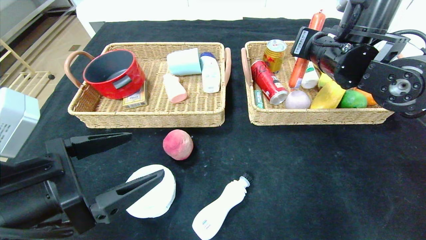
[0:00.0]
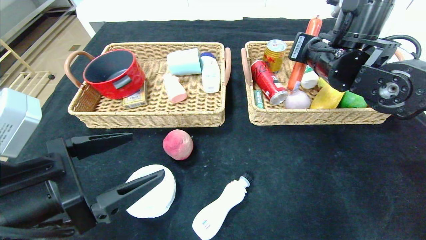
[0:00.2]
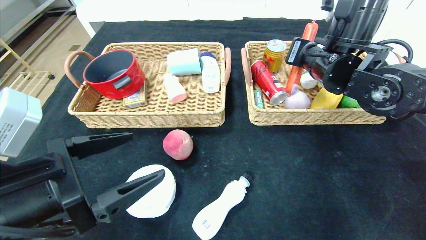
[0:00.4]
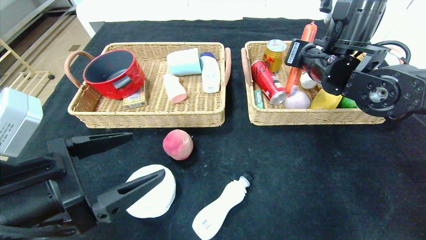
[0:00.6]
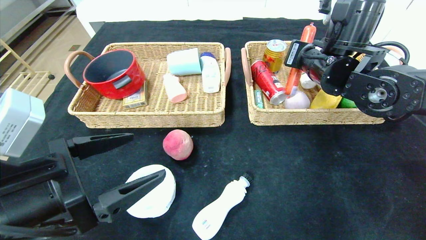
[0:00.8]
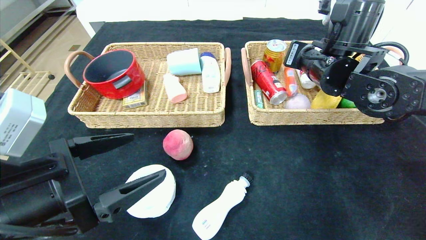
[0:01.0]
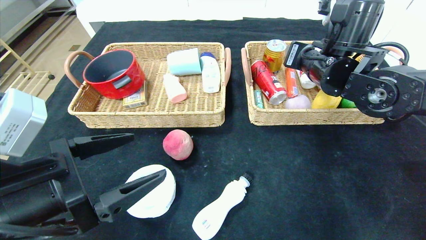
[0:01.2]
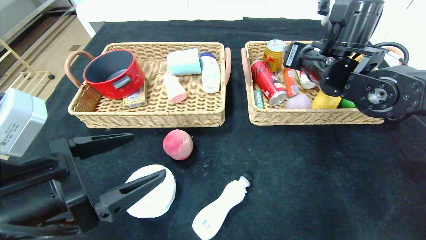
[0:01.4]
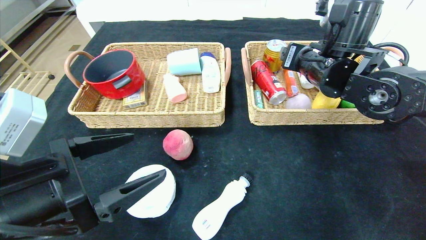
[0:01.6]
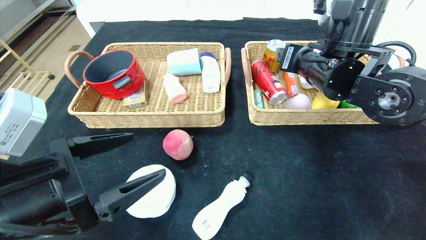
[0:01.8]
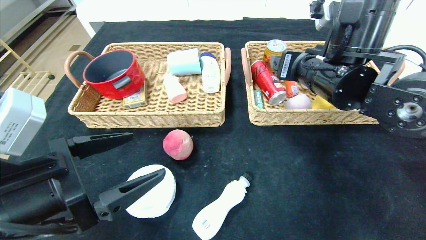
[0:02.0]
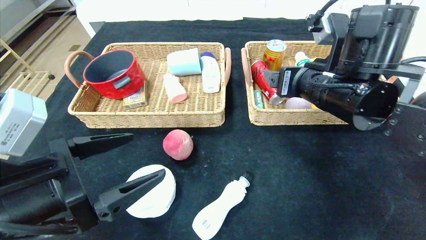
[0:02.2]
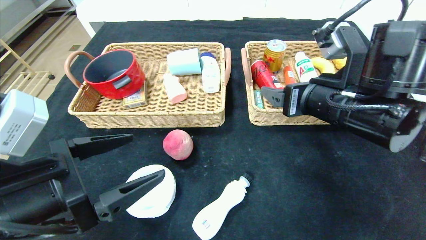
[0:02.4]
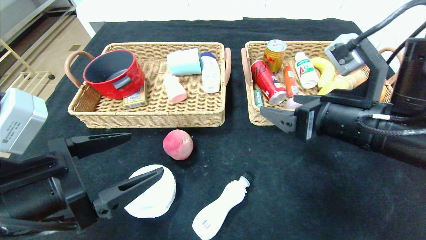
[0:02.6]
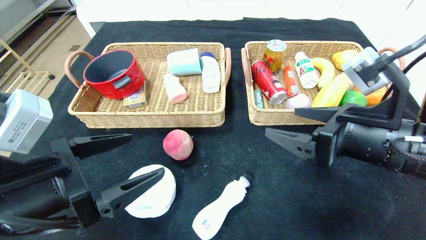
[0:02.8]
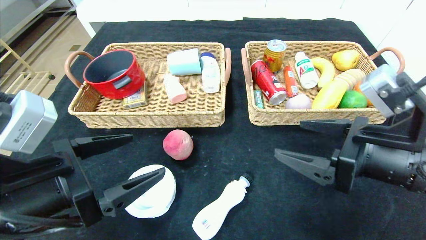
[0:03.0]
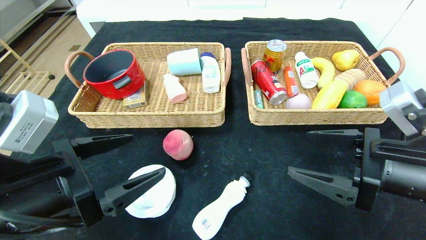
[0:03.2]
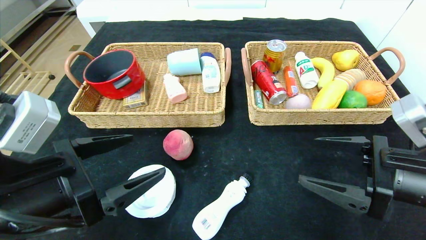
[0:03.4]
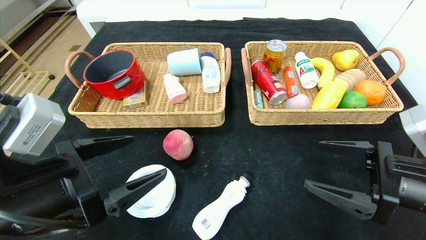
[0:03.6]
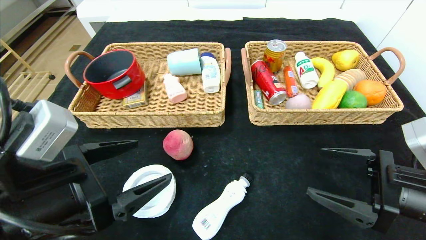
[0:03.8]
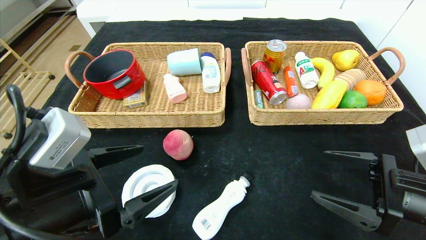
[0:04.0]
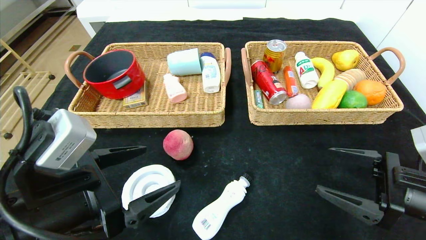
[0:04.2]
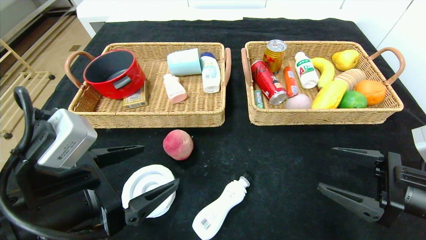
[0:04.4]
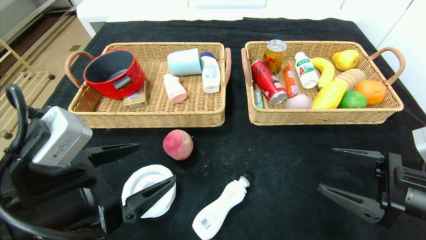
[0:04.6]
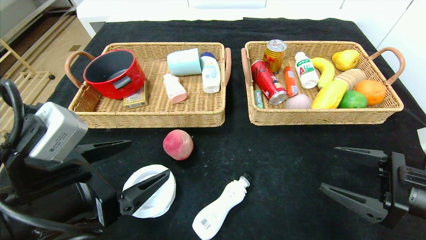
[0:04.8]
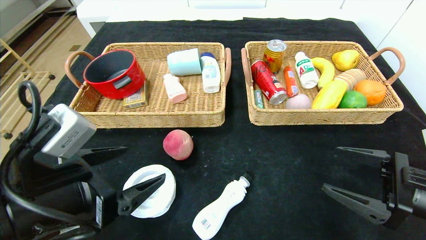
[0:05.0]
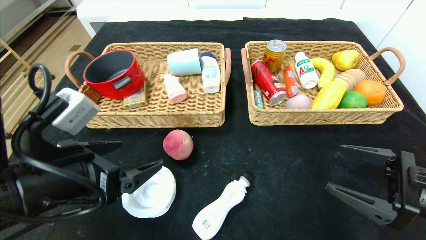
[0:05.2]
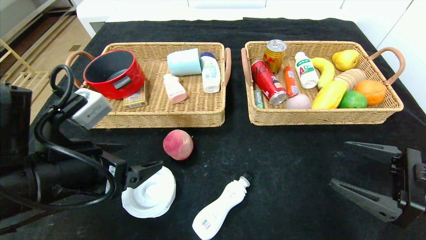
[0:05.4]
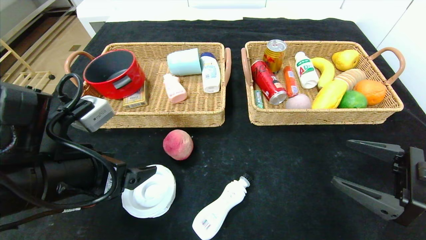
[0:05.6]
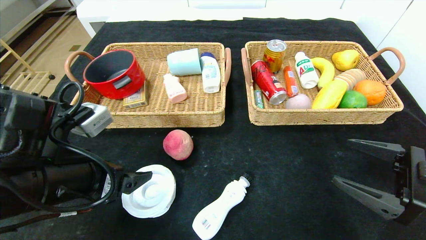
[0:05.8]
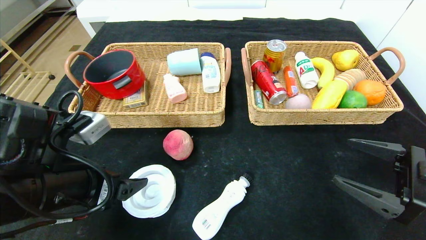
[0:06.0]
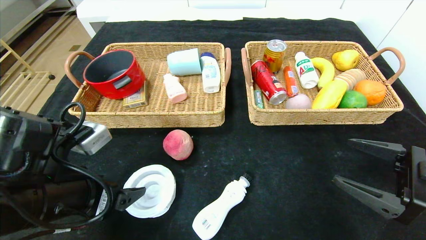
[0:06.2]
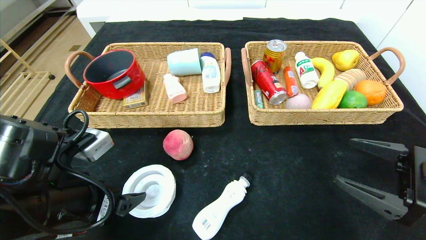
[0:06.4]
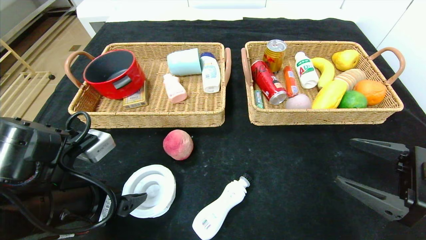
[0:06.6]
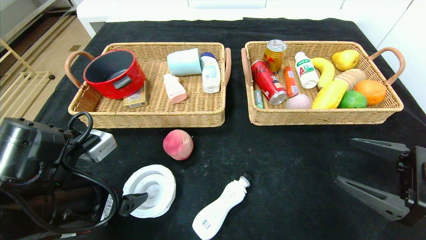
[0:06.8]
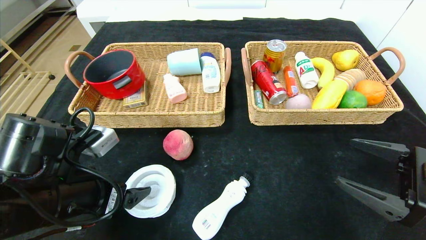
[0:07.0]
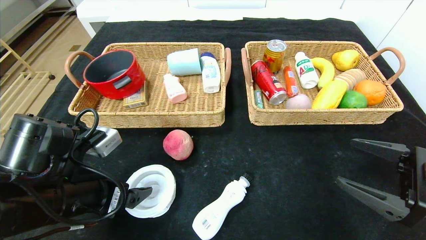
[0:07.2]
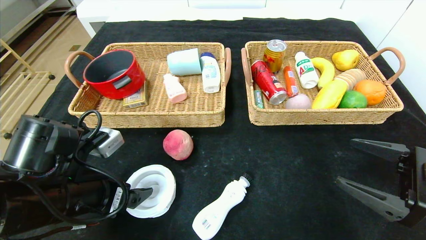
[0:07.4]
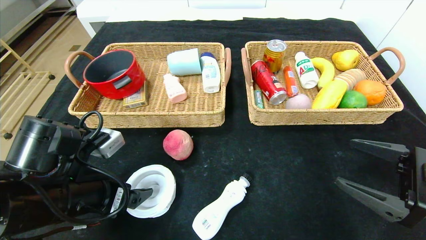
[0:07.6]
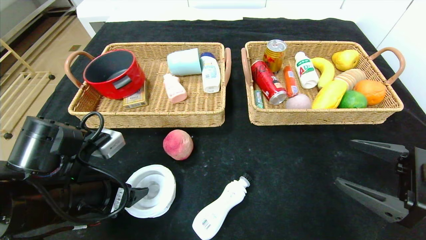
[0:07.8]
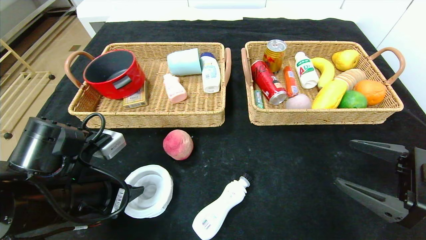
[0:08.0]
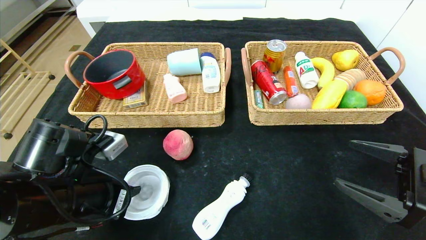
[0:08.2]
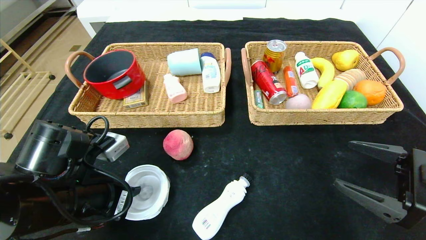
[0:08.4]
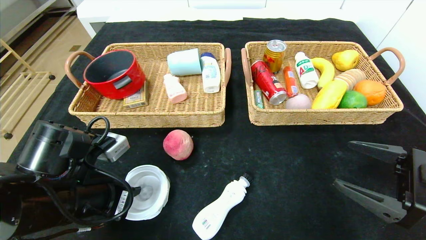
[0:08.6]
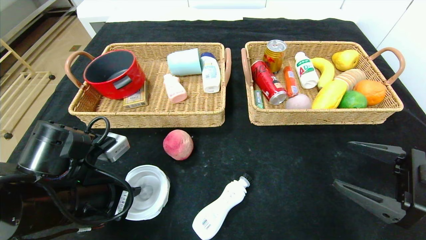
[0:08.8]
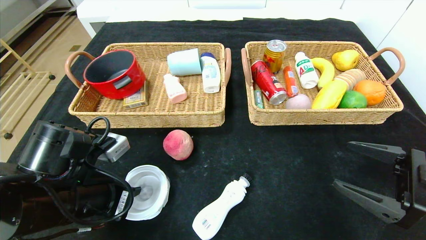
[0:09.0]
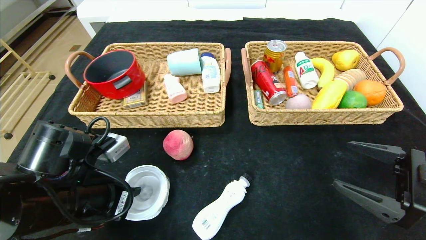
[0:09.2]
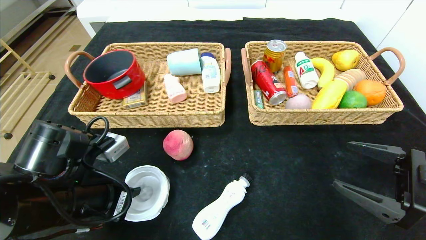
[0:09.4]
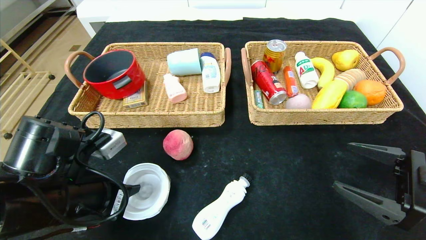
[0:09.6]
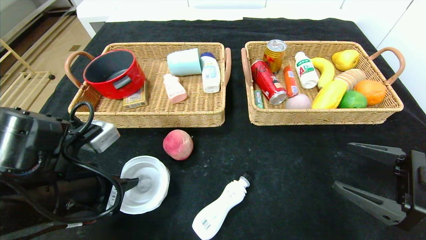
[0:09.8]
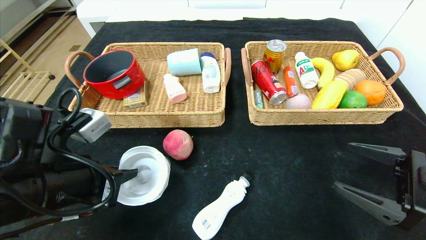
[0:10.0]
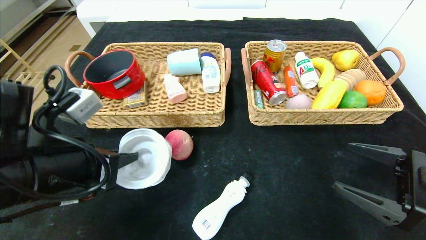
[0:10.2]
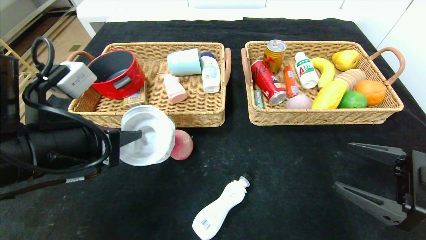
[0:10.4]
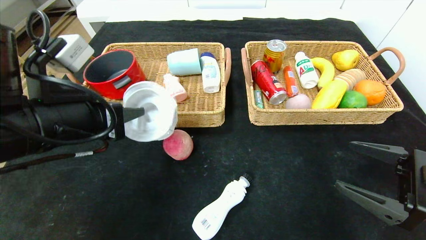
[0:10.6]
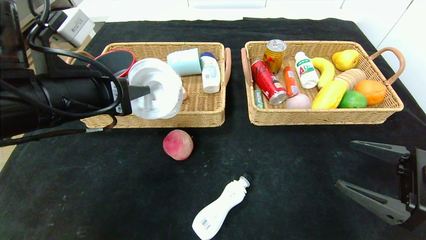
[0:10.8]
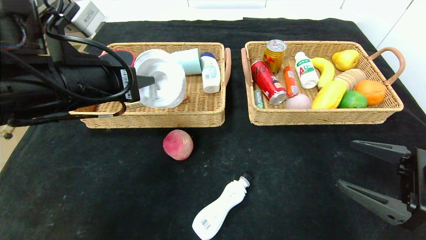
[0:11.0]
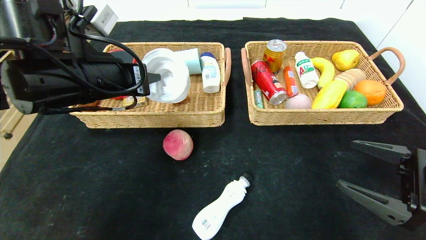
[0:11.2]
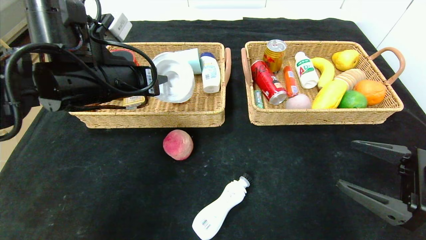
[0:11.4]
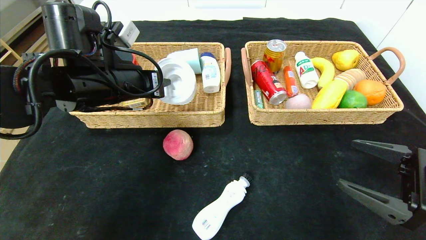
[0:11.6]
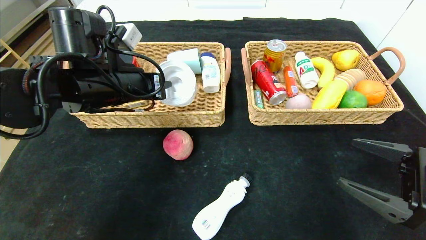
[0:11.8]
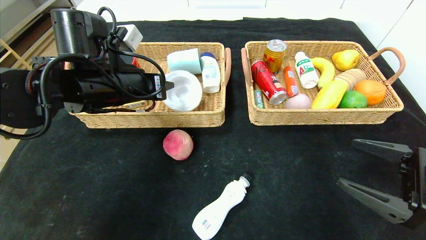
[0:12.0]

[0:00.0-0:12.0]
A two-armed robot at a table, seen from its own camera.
0:00.0 to 0:01.6: The right gripper opens.
0:01.6 to 0:03.0: The right gripper travels backward by roughly 15 cm.
0:03.0 to 0:04.4: The right gripper heads to the right and downward, covering approximately 10 cm.
0:06.0 to 0:07.6: The grippers move only a little.
0:07.6 to 0:09.0: The left gripper closes its fingers.
0:09.0 to 0:10.4: The left gripper shifts approximately 10 cm upward.
0:10.4 to 0:12.0: The left gripper moves forward, about 15 cm.

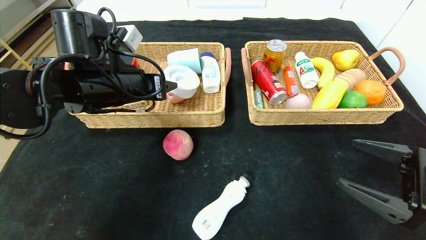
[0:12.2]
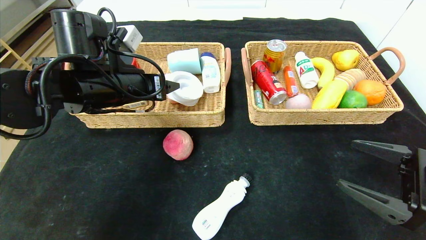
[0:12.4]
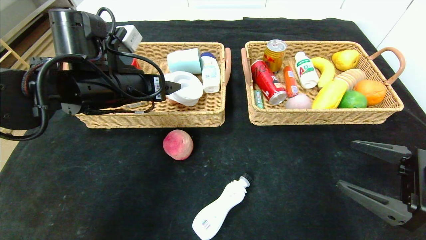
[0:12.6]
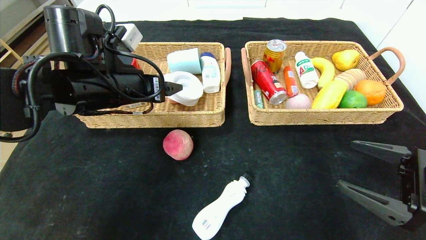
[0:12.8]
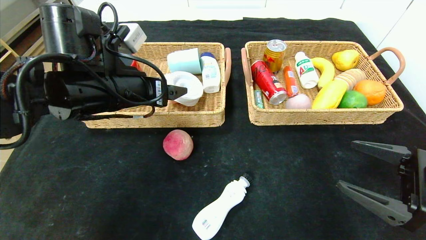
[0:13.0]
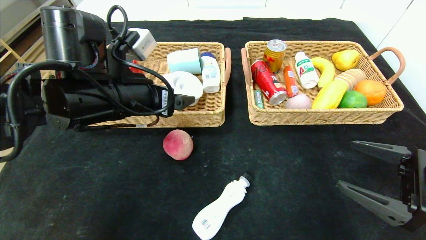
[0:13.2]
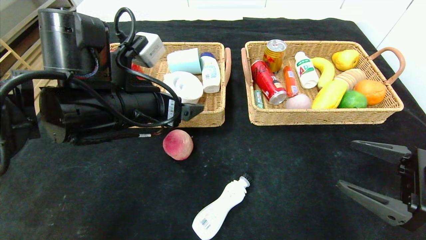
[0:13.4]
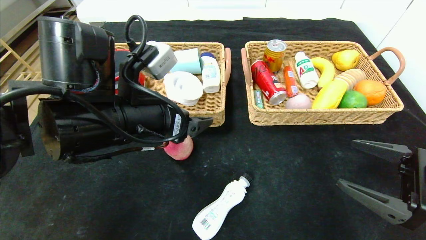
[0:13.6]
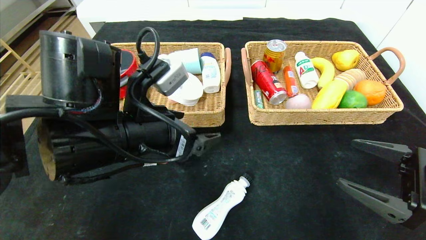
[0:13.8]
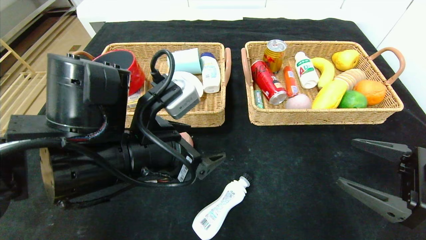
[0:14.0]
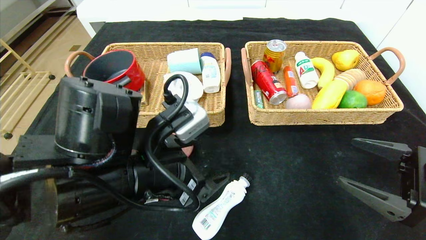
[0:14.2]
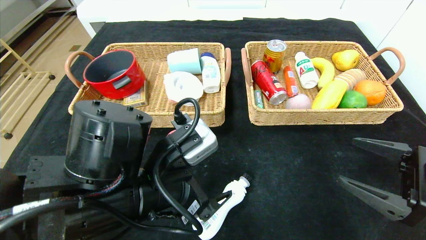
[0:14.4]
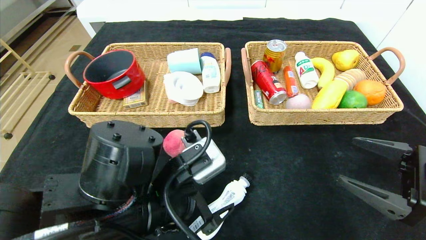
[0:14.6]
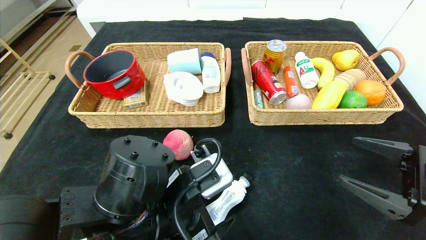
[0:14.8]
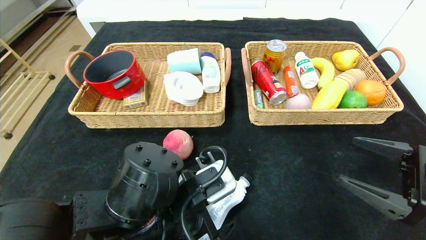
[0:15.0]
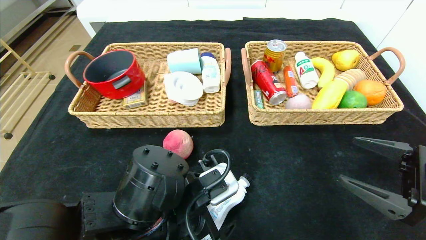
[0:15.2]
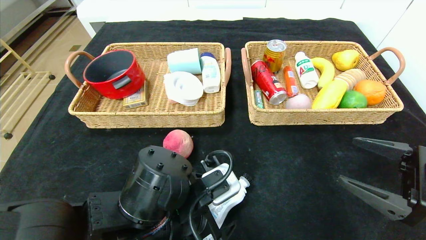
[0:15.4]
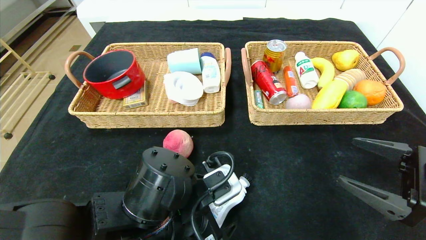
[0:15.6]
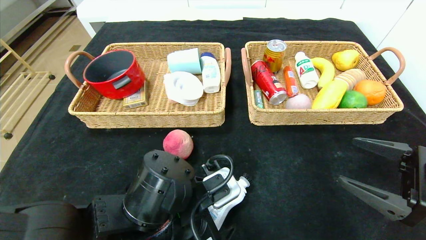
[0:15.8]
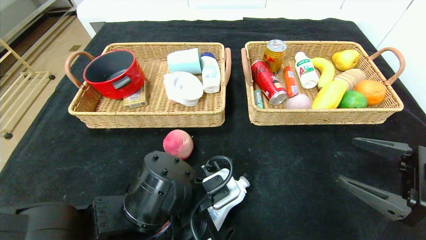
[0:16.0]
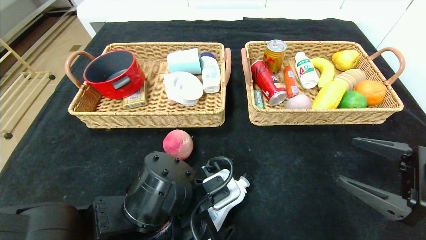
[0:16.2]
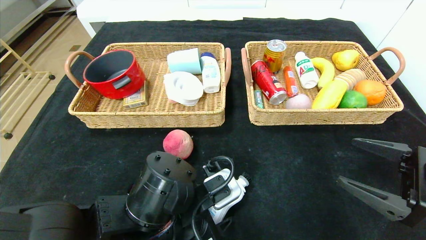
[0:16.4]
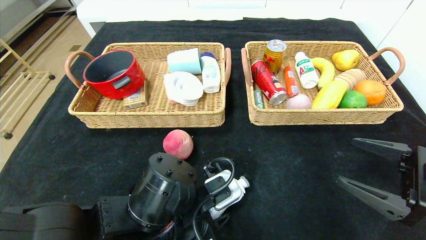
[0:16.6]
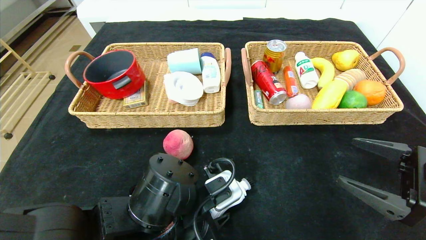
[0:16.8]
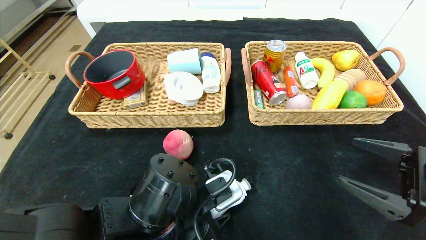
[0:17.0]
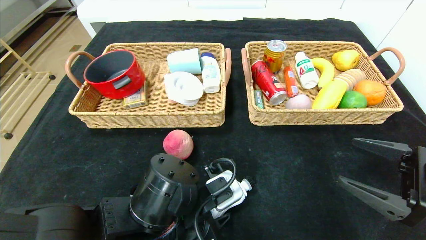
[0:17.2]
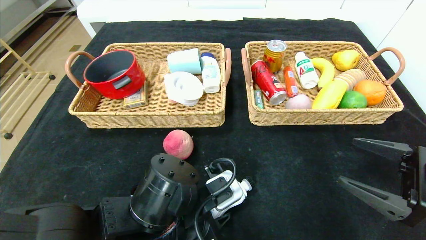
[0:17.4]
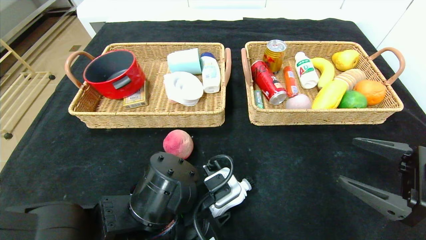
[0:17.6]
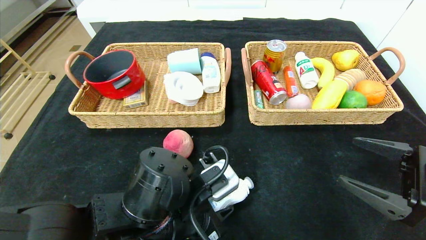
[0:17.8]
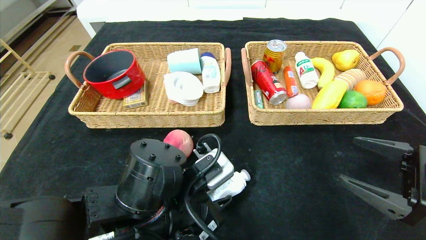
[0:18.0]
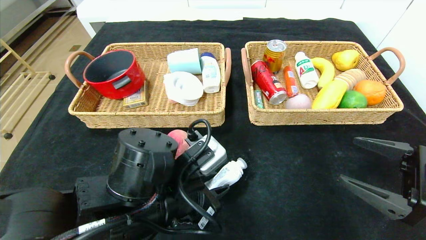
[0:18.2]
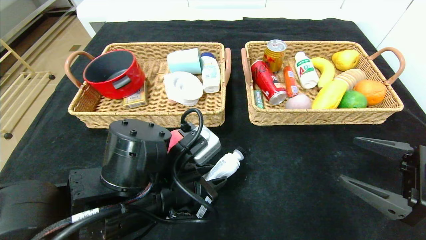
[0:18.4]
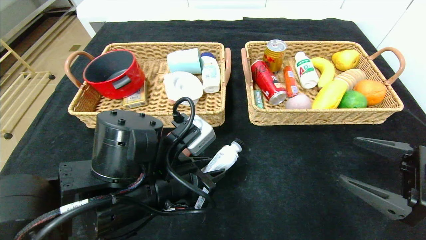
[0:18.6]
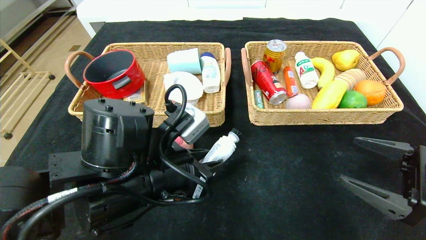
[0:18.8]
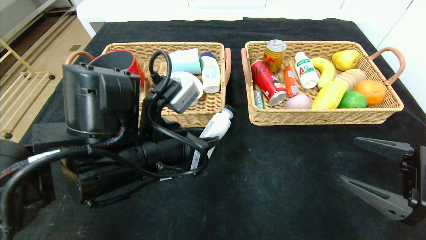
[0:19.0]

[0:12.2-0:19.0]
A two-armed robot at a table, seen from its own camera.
0:12.2 to 0:13.6: The left gripper heads backward, covering approximately 10 cm, and opens up.
0:13.6 to 0:15.0: The left gripper goes roughly 10 cm downward and backward.
0:15.0 to 0:16.2: The grippers stay close to where they were, moving slightly.
0:16.2 to 0:17.6: The left gripper closes its fingers.
0:17.6 to 0:19.0: The left gripper is displaced upward by roughly 10 cm.
